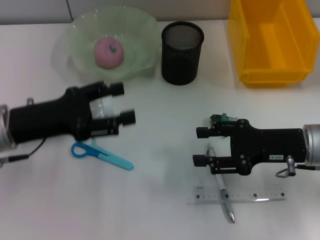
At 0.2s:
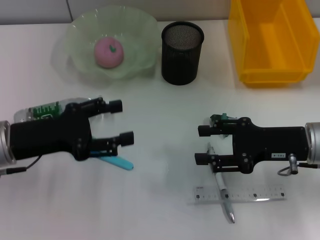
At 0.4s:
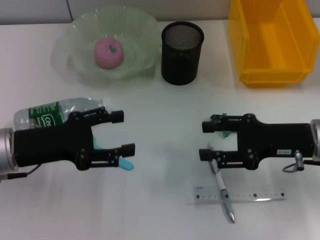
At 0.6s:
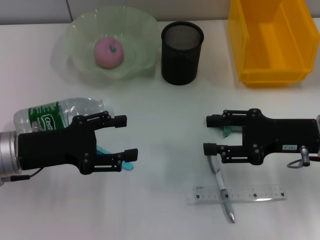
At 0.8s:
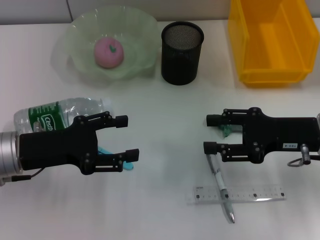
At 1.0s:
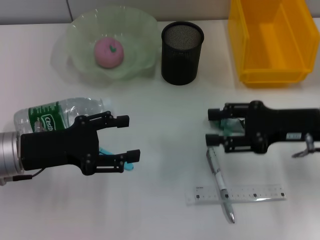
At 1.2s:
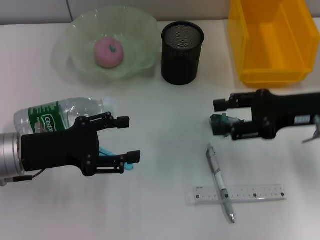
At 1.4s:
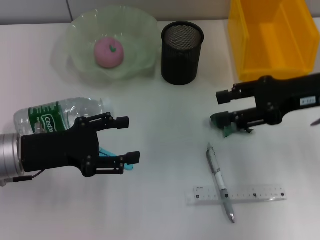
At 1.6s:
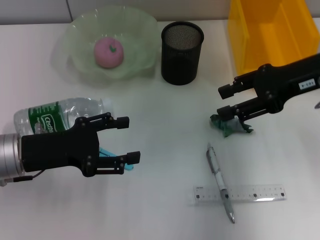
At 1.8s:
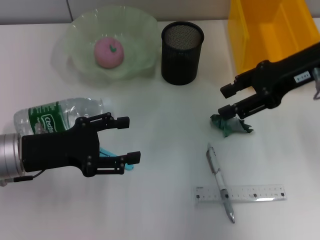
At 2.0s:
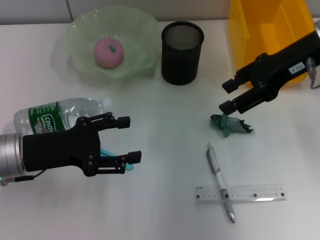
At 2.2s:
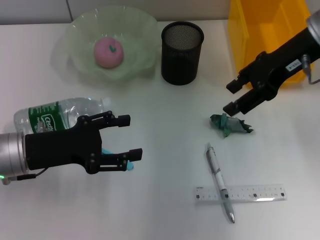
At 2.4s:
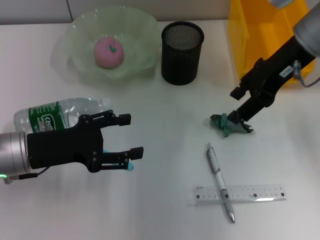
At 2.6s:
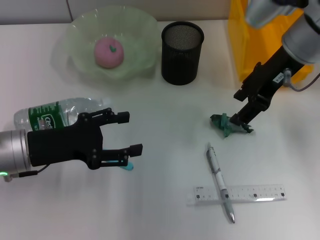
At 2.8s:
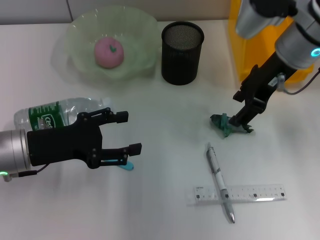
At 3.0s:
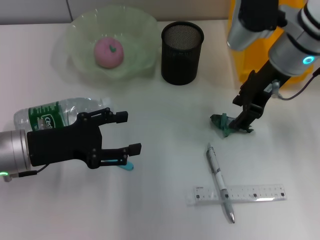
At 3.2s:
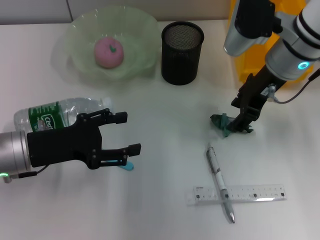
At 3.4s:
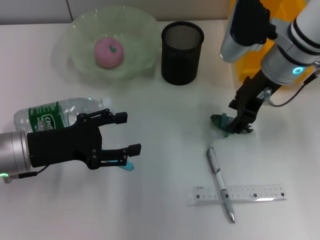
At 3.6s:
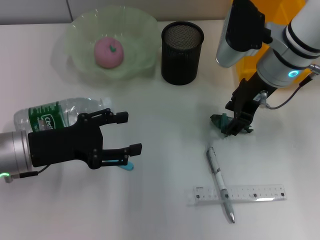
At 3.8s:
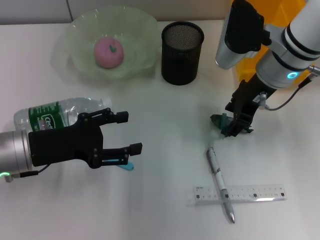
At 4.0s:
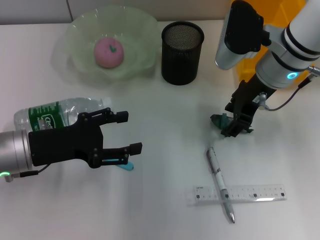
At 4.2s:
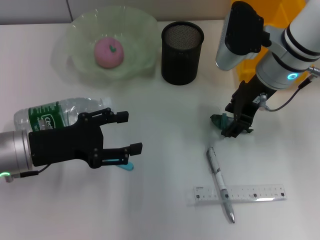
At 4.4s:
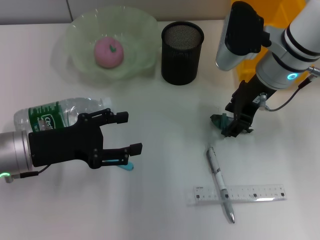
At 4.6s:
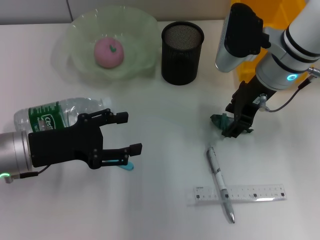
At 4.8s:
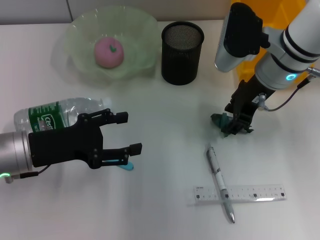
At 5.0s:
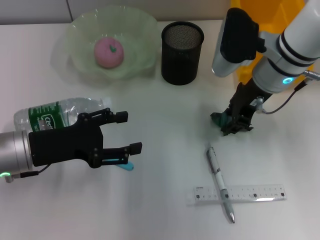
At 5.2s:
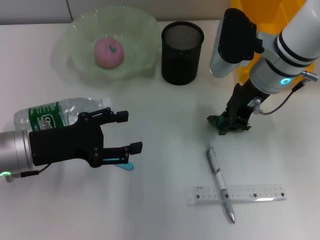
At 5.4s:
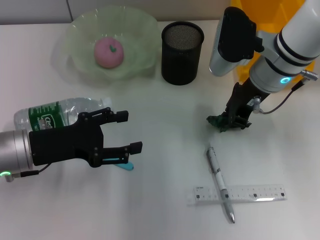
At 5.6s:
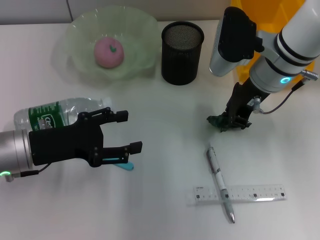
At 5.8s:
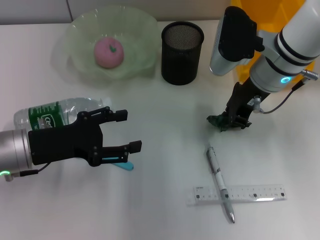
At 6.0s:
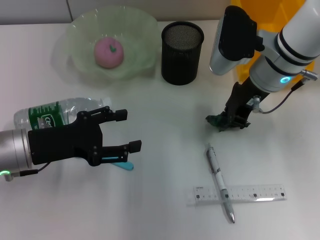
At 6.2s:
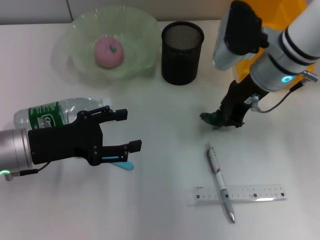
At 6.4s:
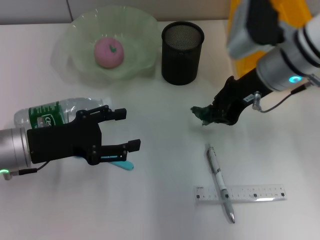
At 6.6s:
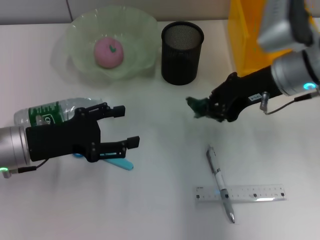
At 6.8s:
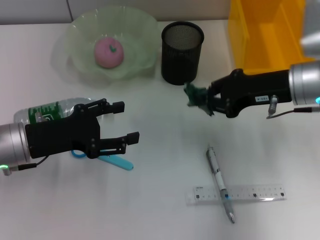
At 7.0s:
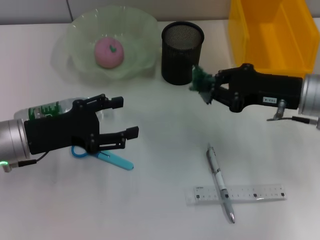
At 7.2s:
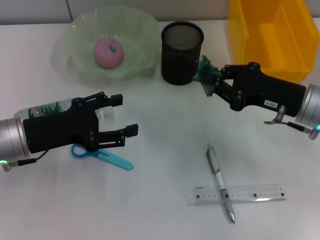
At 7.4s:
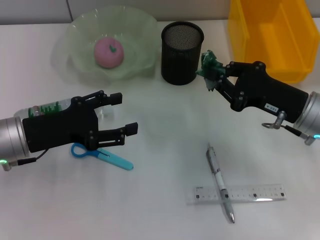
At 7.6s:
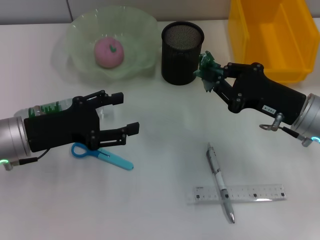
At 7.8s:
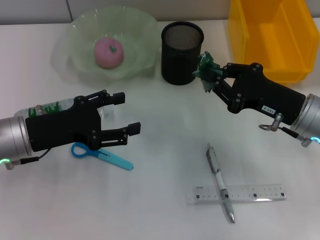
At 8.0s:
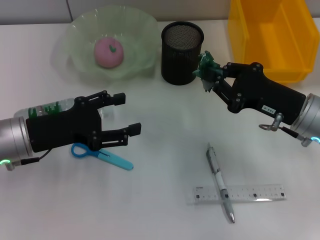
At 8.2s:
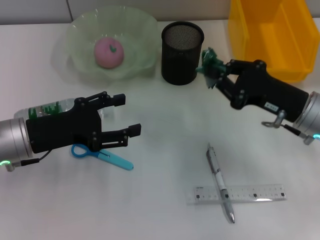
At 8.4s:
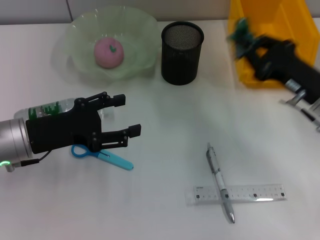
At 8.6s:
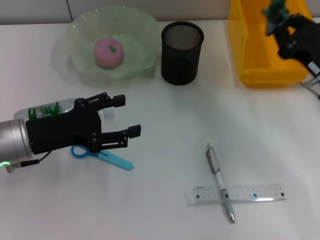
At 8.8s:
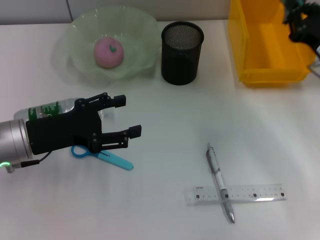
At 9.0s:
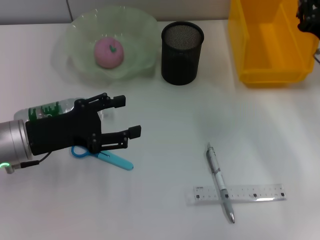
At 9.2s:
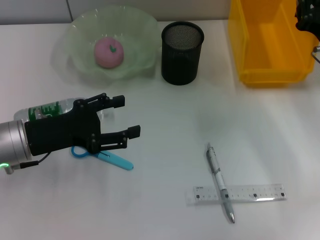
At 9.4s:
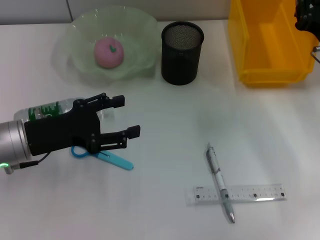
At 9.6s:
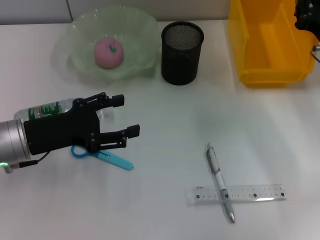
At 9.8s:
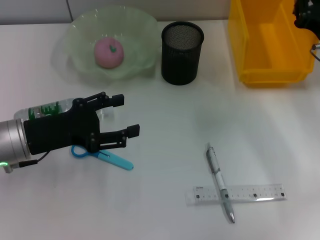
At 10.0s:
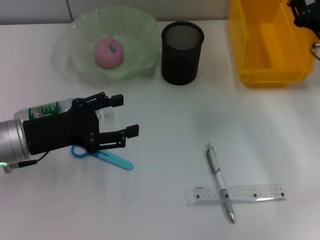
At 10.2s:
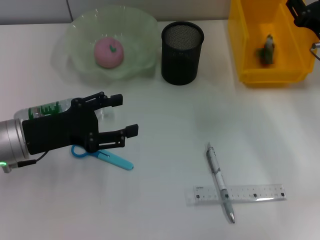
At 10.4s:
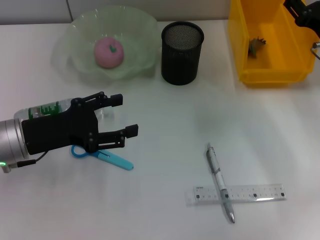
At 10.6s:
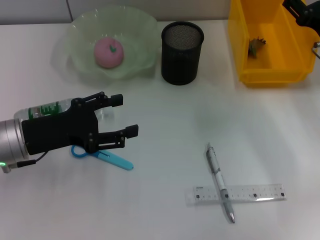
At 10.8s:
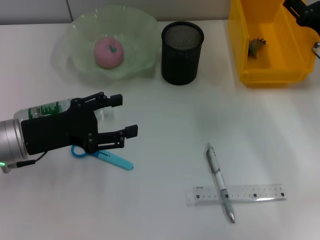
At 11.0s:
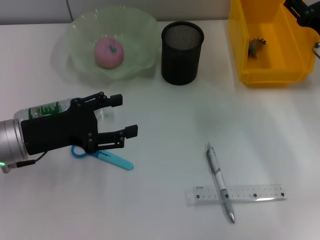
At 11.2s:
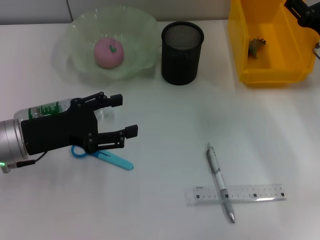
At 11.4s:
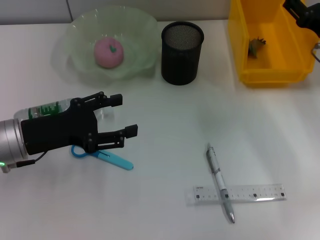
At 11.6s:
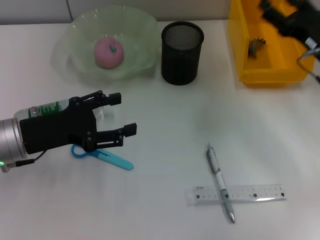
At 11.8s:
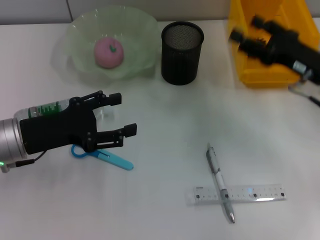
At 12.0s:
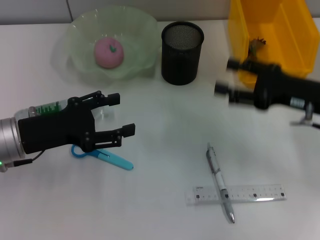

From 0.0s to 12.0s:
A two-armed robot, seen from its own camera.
Step, from 0.0s to 5.8s: Grab the plastic with the right hand.
Step, from 6.0s to 10.8s: Place the plastic into the trash can with the right hand.
From 0.0s to 1.6s: The right gripper goes about 15 cm upward and forward.
From 1.6s to 3.0s: The right gripper goes approximately 10 cm to the left.
From 3.0s to 4.4s: The grippers move only a little.
From 4.4s to 6.0s: The right gripper closes up.
From 6.0s to 7.6s: The right gripper travels backward, to the right and downward by approximately 15 cm.
From 7.6s to 9.0s: The right gripper is displaced to the right and forward by about 10 cm.
From 9.0s to 10.4s: The right gripper opens up.
From 10.4s to 12.0s: The right gripper moves backward, roughly 5 cm, and opens.

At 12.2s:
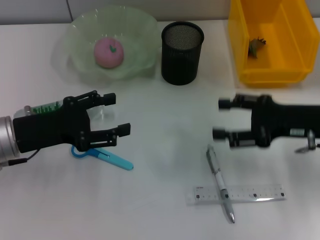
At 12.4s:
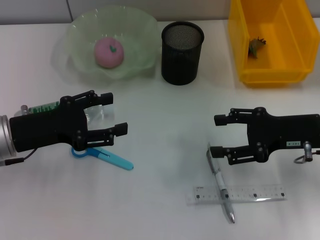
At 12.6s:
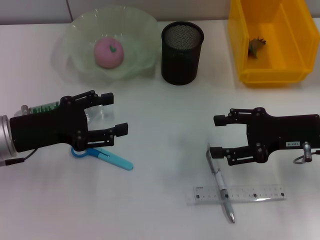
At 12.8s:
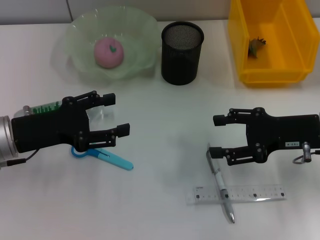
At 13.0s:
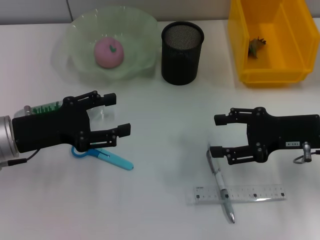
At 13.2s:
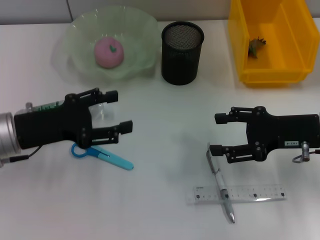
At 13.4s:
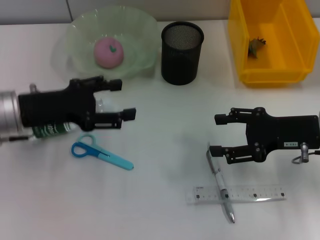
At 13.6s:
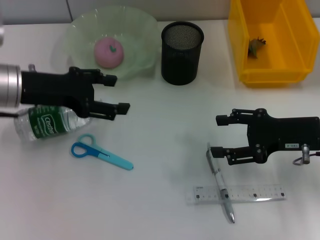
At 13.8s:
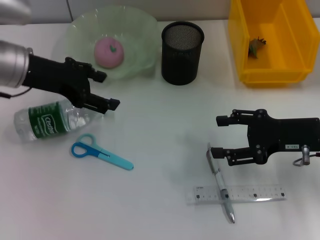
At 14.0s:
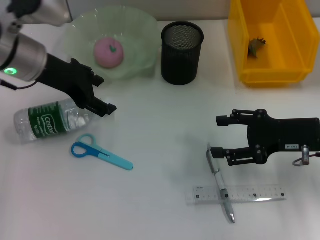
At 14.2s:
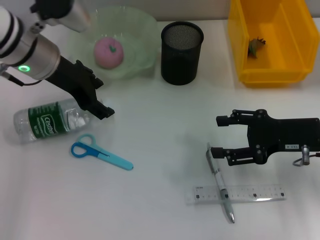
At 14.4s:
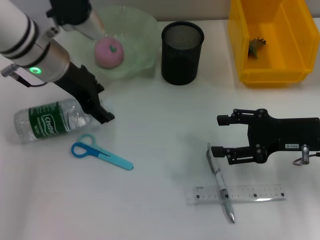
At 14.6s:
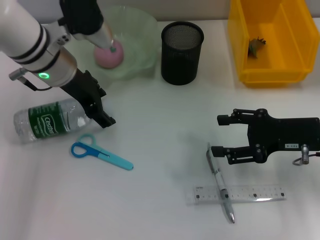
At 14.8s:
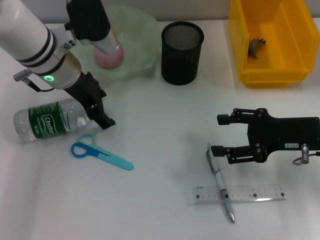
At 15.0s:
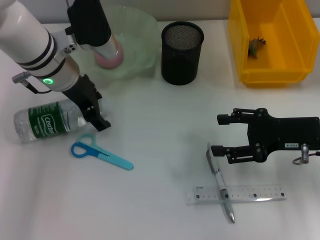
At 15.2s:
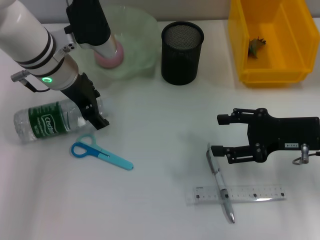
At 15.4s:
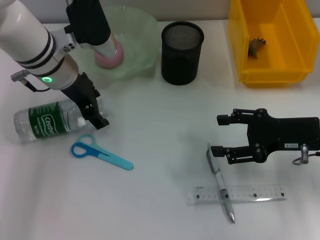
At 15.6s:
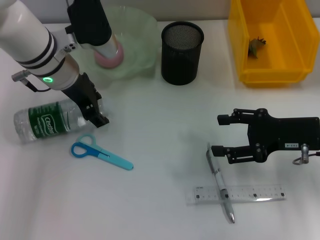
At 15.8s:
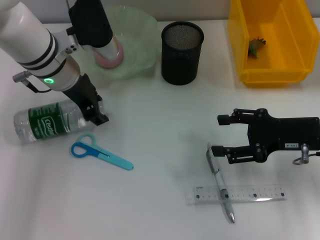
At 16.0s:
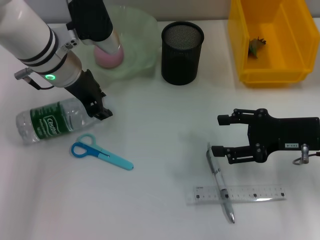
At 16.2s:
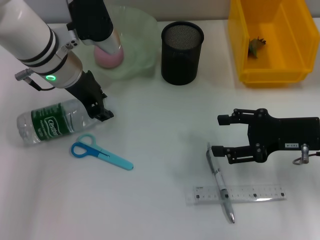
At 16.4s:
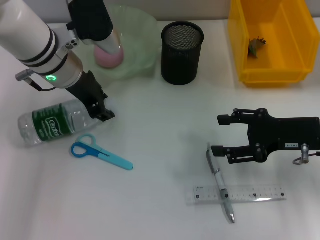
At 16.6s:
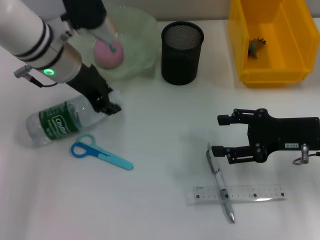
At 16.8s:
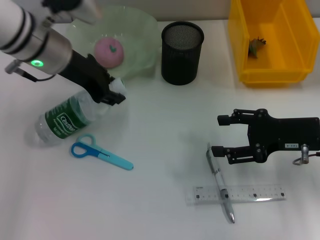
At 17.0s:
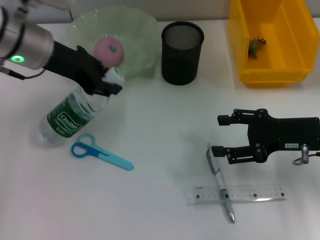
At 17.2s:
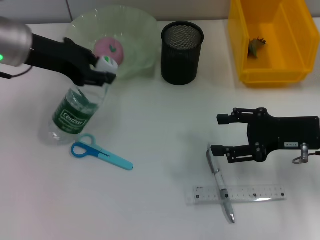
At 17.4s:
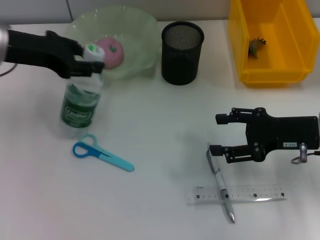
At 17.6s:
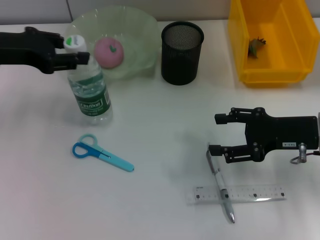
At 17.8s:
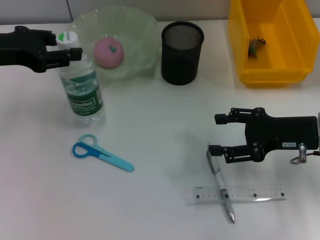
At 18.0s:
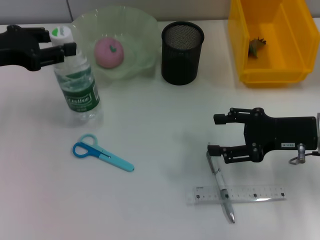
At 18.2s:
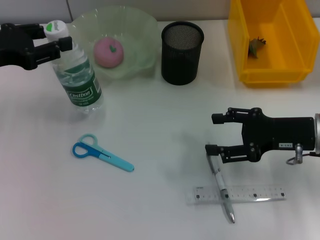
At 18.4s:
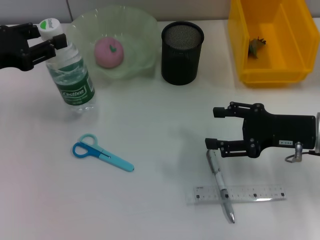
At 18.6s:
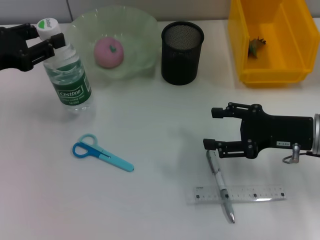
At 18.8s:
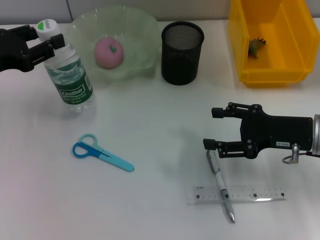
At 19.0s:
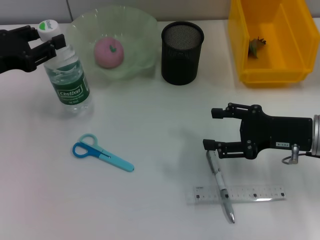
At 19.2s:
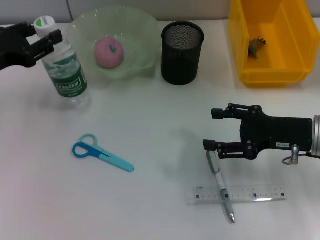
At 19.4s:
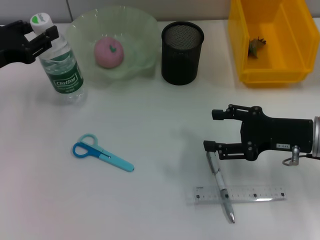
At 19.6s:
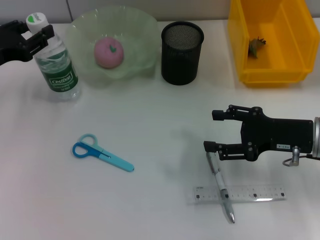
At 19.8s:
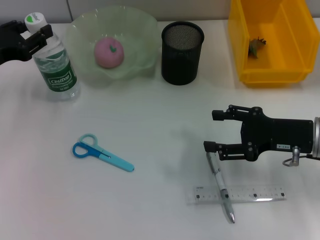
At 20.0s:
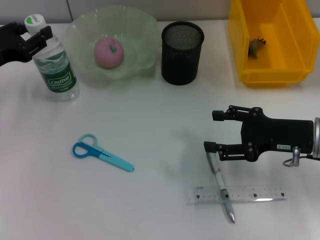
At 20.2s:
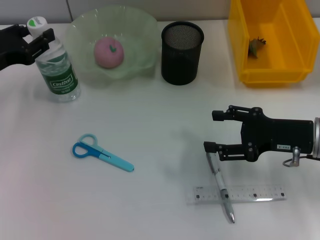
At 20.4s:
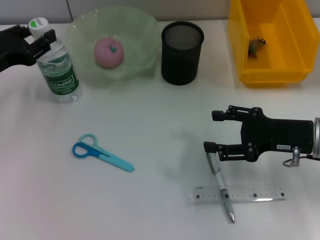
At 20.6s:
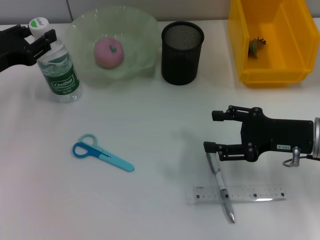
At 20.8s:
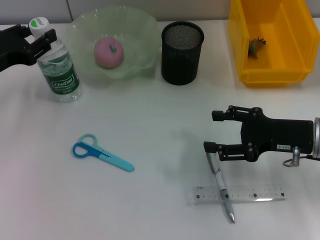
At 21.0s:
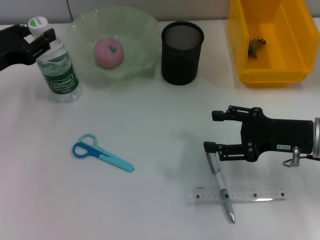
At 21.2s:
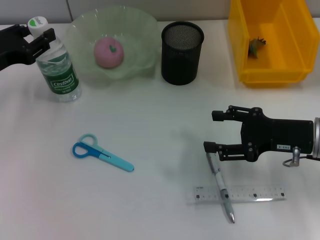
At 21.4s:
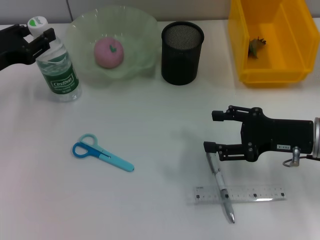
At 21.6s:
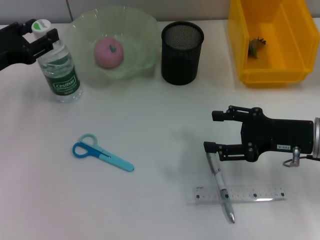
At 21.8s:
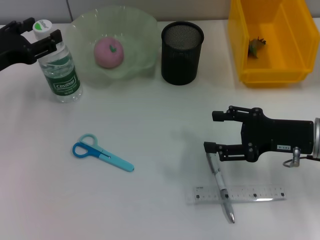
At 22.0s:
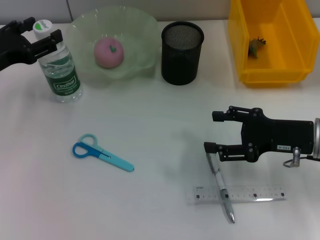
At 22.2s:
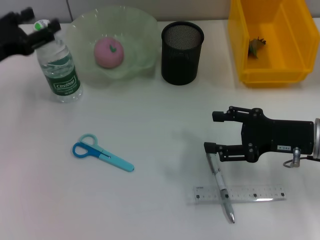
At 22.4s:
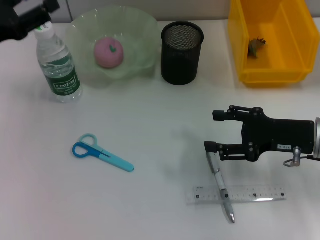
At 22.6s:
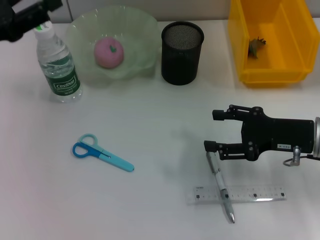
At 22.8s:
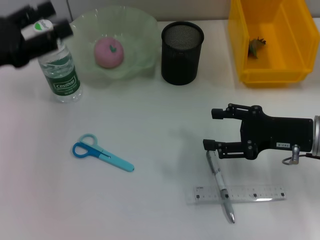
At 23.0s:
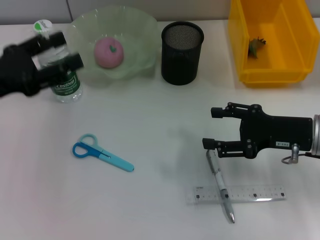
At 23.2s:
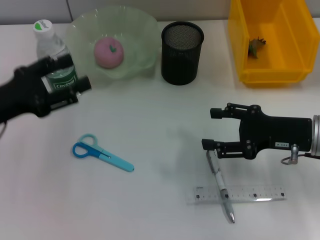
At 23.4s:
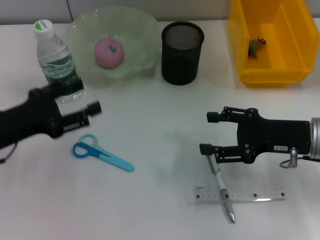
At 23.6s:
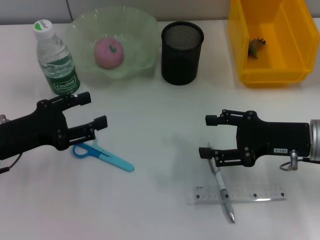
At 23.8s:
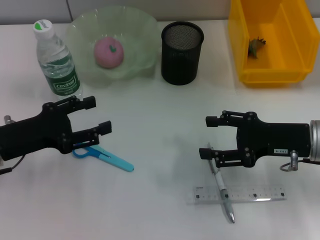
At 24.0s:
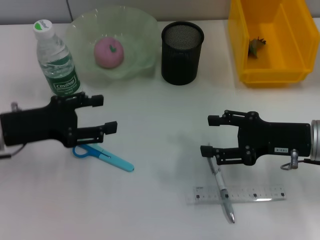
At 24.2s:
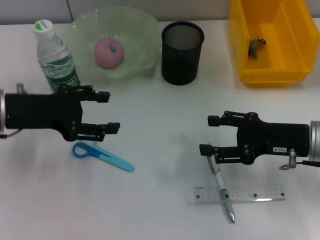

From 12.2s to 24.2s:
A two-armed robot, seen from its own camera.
Step, from 12.2s to 15.8s: Grab the water bottle with the left hand.
Step, from 16.0s to 21.8s: Place the water bottle on the table with the left hand.
From 12.2s to 13.8s: The left gripper moves upward and forward, some 10 cm.
From 13.8s to 15.2s: The left gripper is displaced to the right by about 5 cm.
From 15.2s to 16.6s: The left gripper closes.
From 16.6s to 18.2s: The left gripper moves to the left and backward, roughly 15 cm.
From 18.2s to 19.8s: The grippers stay close to where they were, moving slightly.
From 19.8s to 21.2s: Both grippers stay about where they are.
From 21.2s to 22.6s: The left gripper changes place by roughly 5 cm, and opens.
From 22.6s to 24.2s: The left gripper reaches approximately 10 cm downward, then returns.
